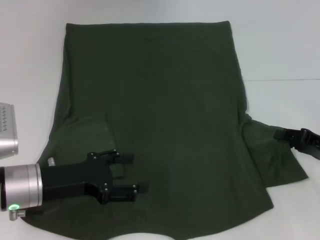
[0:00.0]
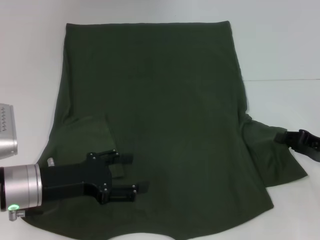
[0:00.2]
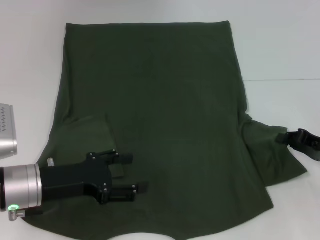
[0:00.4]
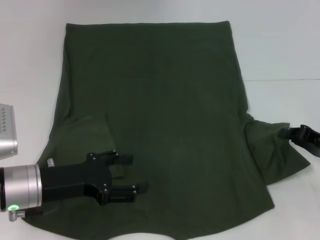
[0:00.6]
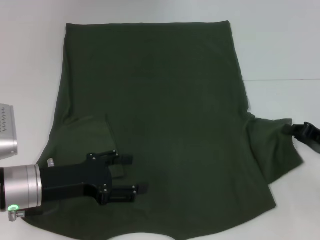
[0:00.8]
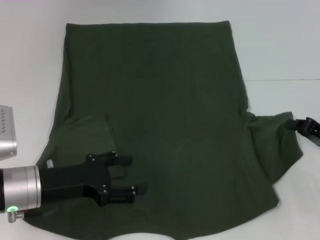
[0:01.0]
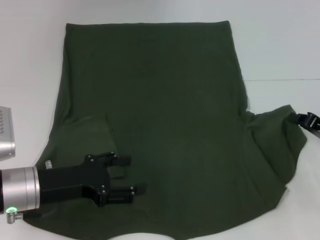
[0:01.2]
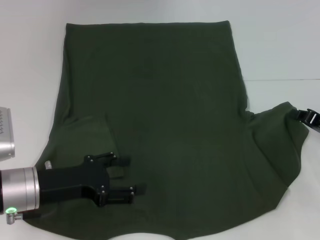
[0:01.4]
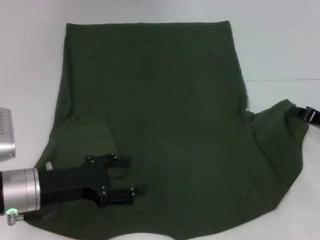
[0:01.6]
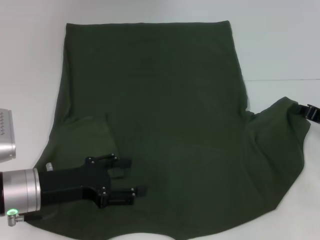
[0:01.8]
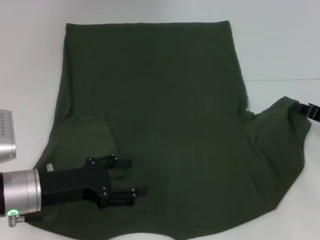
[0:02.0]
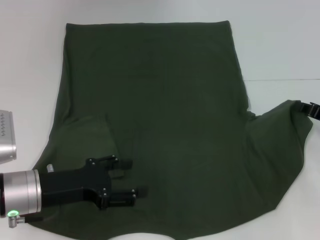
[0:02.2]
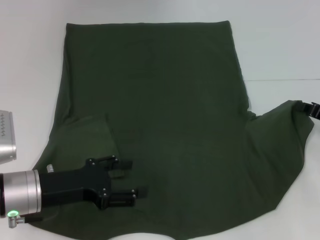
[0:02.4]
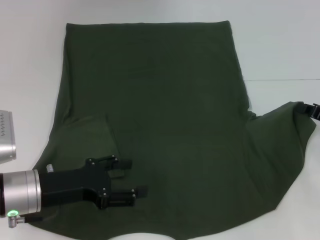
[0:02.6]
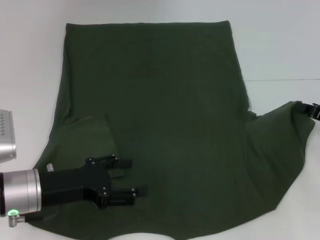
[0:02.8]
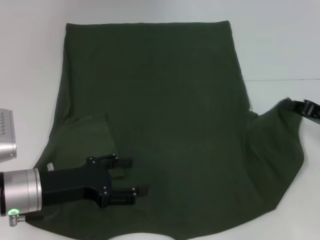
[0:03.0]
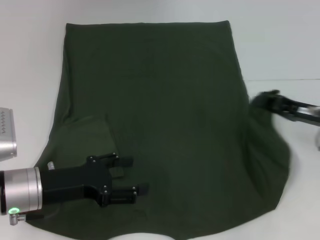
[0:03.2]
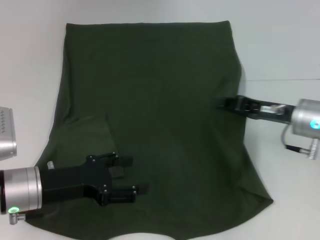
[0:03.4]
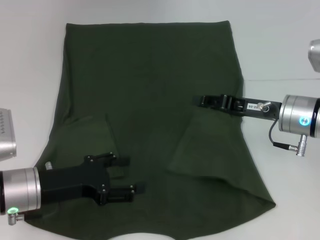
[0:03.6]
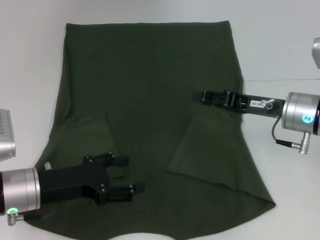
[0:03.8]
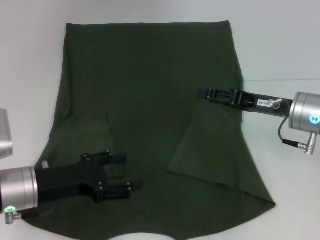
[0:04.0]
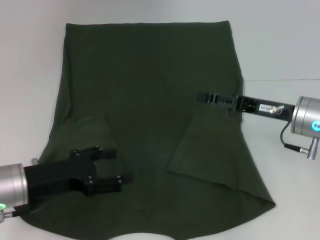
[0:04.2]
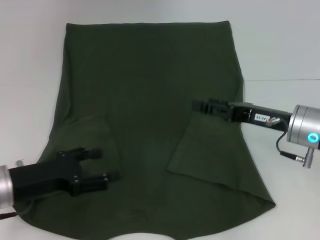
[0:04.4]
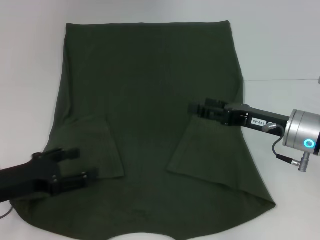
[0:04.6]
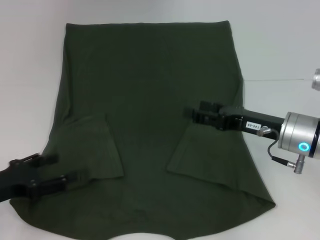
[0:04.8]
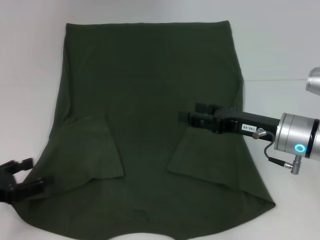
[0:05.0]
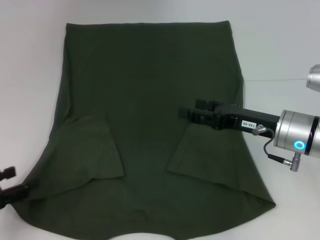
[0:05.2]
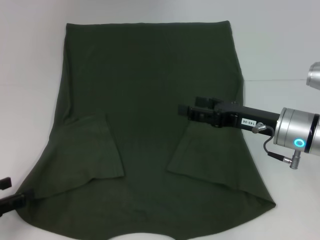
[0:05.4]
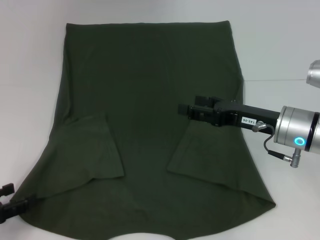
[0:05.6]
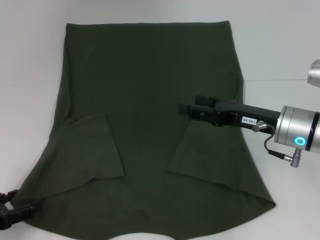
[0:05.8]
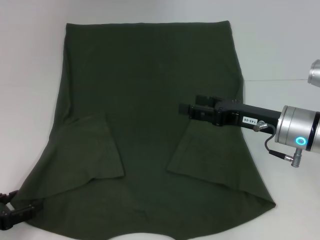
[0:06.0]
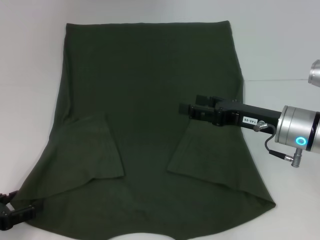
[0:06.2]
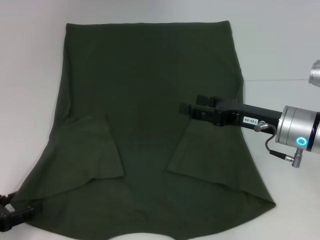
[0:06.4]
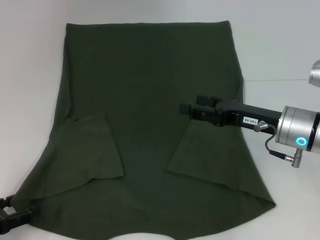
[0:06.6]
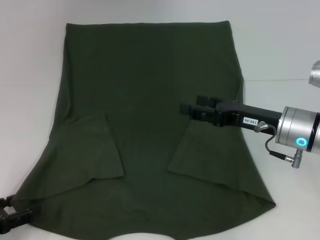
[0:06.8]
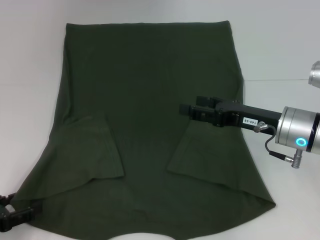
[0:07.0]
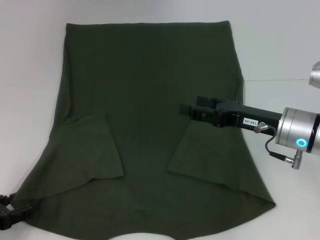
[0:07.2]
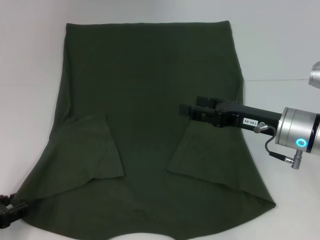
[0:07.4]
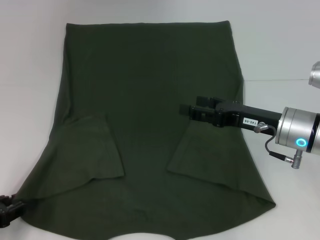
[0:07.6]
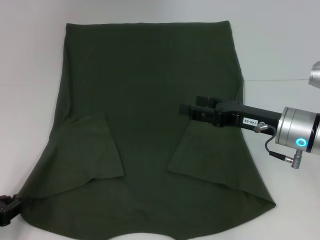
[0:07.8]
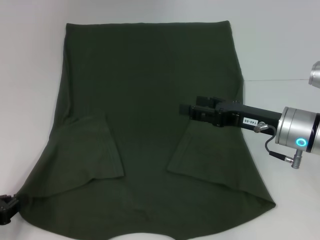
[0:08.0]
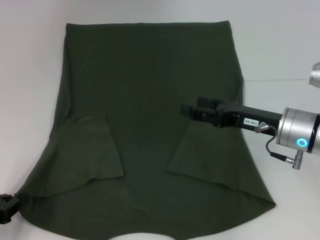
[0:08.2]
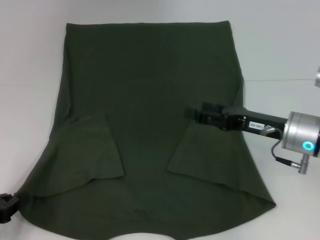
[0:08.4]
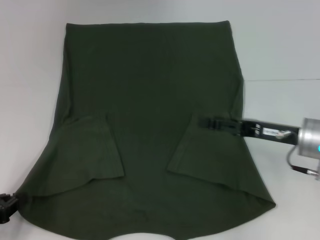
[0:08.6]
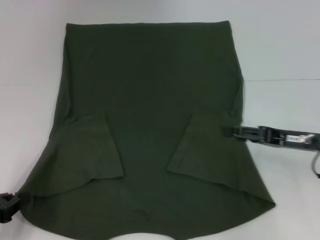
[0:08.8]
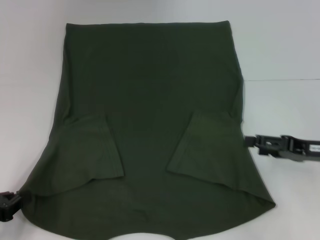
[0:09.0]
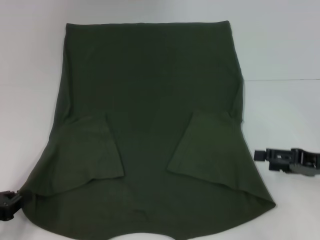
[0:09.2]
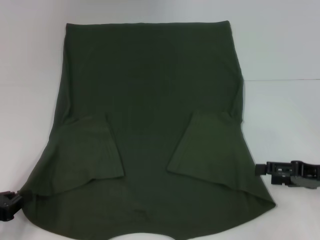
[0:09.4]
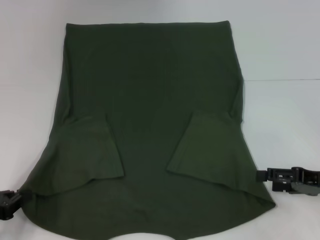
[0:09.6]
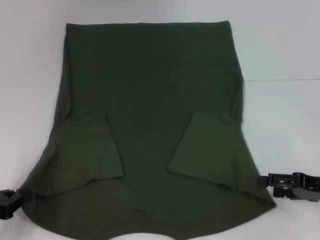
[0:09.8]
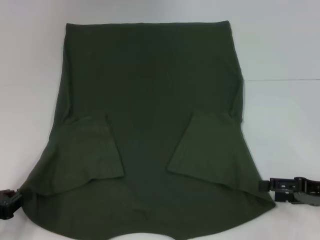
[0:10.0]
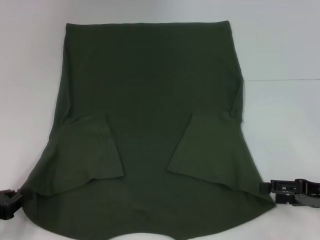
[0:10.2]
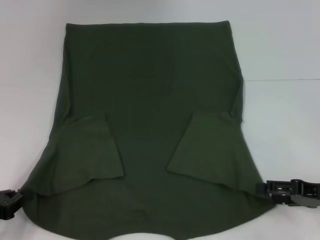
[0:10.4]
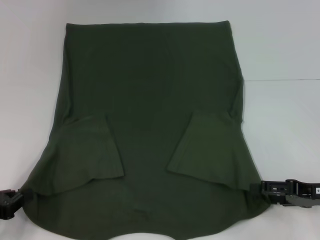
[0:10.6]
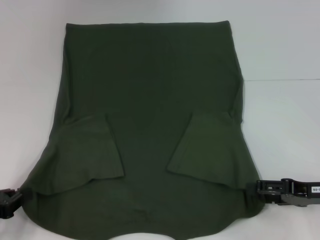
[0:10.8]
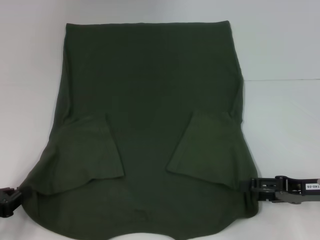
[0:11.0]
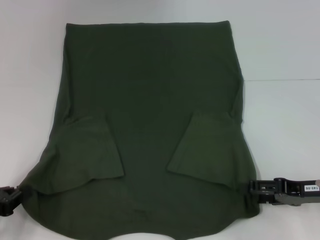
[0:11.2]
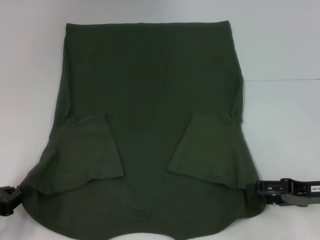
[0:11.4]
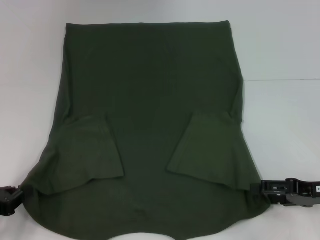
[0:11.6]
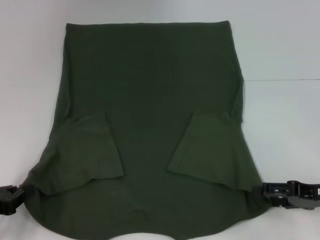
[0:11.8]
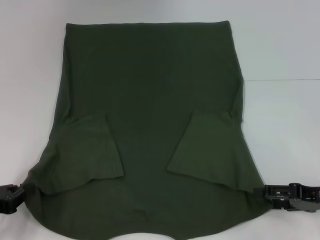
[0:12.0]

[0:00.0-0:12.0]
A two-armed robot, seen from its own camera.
Step, 0:00.0 to 0:04.0: Fold the bottom right sleeve with your right hand.
Step, 0:04.2 to 0:08.4: Grab the bottom left corner with your left hand.
0:00.0 to 0:01.6: The right gripper closes.
0:01.6 to 0:03.0: The grippers make only small movements.
0:03.0 to 0:04.4: The right gripper goes approximately 10 cm to the left, and opens up.
0:04.4 to 0:06.0: The left gripper shifts some 10 cm to the left and backward.
0:07.6 to 0:09.0: The left gripper closes; the right gripper travels to the right by about 10 cm.
0:09.0 to 0:10.4: The right gripper moves approximately 5 cm.
0:10.4 to 0:12.0: The grippers stay close to where they were, moving slightly.

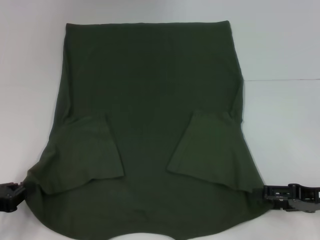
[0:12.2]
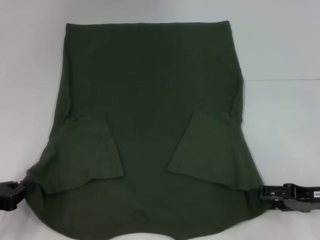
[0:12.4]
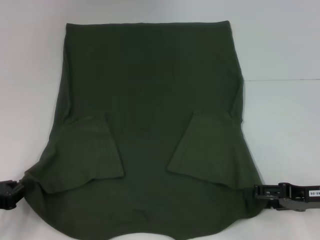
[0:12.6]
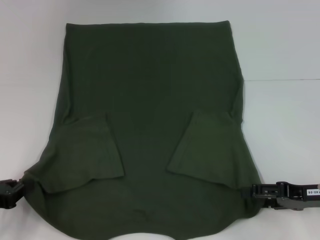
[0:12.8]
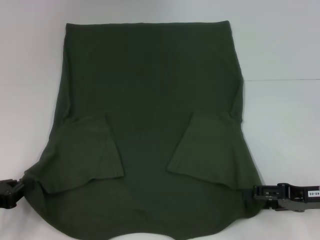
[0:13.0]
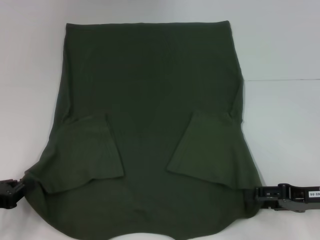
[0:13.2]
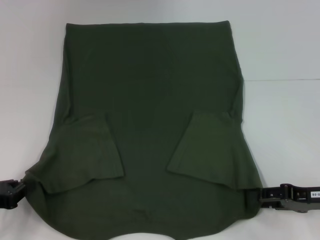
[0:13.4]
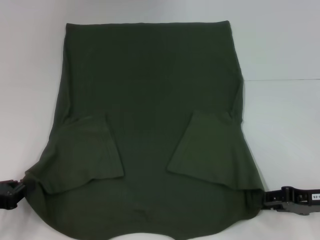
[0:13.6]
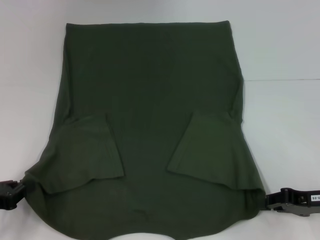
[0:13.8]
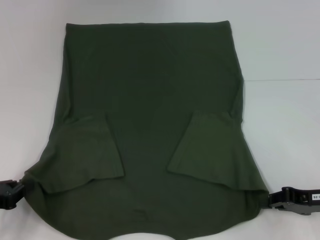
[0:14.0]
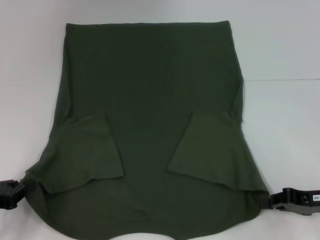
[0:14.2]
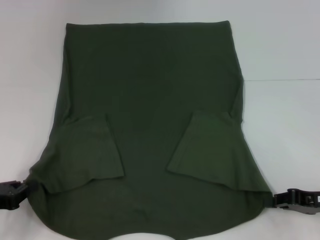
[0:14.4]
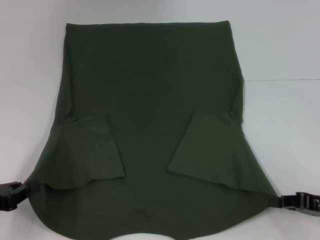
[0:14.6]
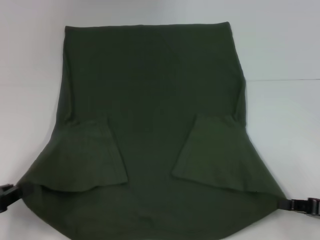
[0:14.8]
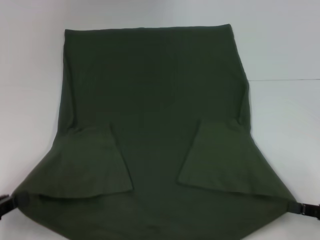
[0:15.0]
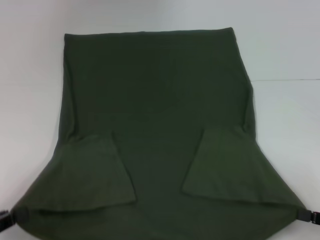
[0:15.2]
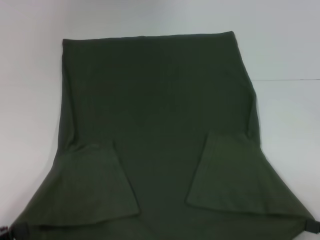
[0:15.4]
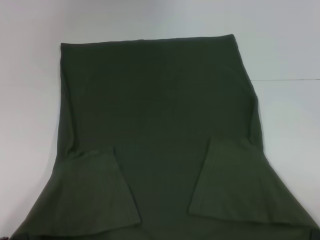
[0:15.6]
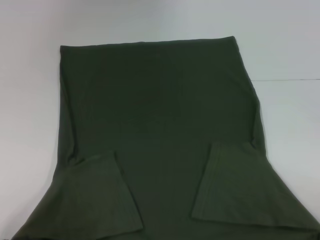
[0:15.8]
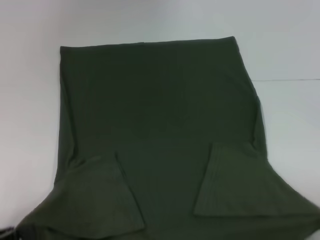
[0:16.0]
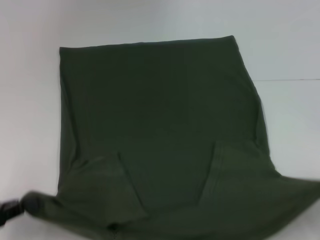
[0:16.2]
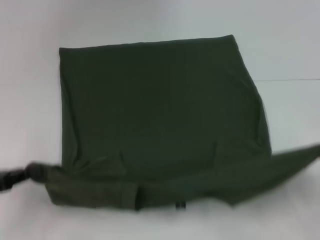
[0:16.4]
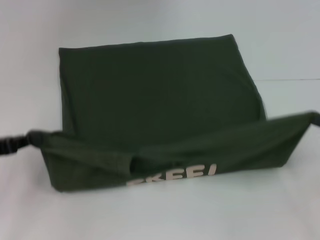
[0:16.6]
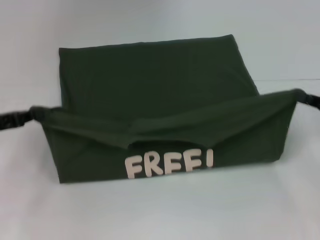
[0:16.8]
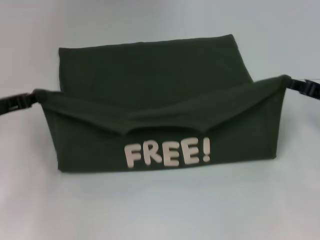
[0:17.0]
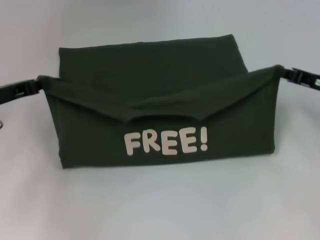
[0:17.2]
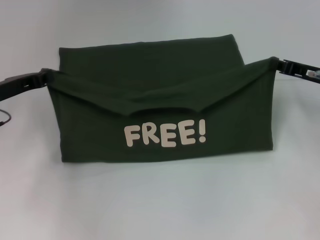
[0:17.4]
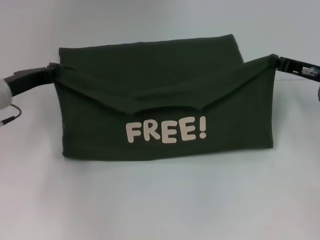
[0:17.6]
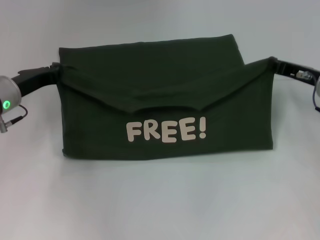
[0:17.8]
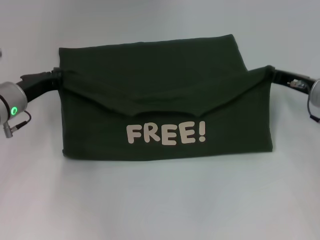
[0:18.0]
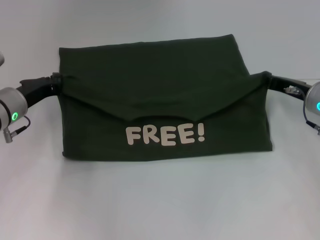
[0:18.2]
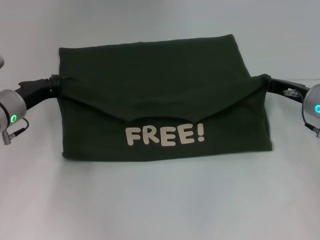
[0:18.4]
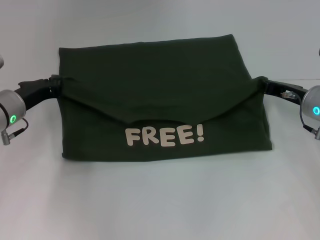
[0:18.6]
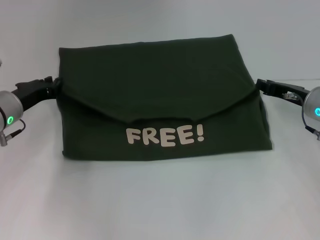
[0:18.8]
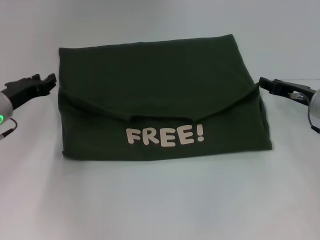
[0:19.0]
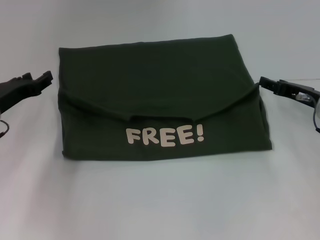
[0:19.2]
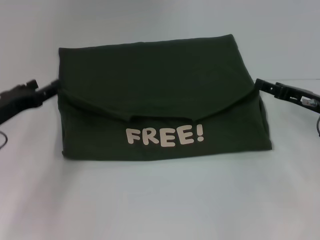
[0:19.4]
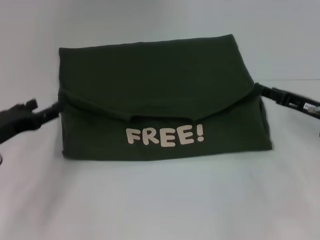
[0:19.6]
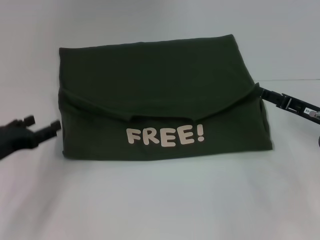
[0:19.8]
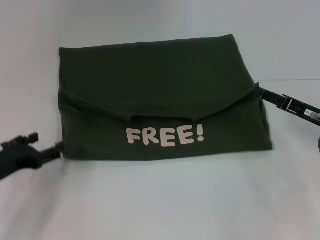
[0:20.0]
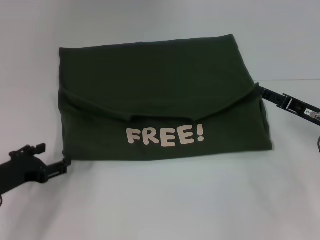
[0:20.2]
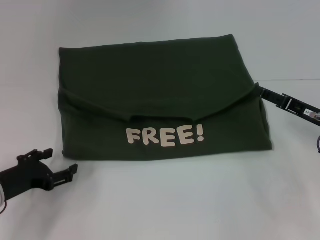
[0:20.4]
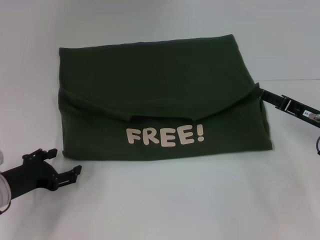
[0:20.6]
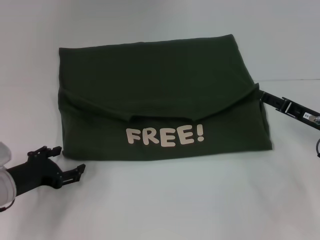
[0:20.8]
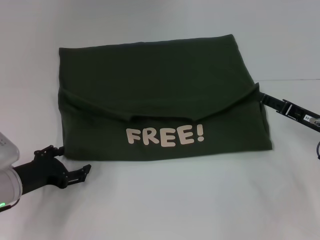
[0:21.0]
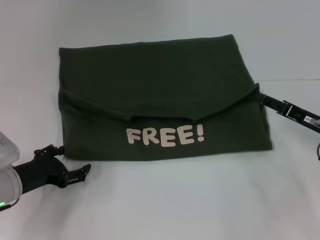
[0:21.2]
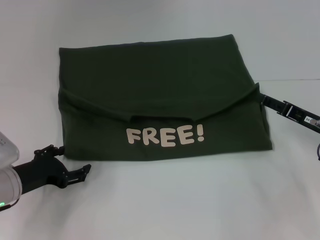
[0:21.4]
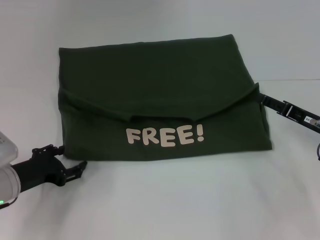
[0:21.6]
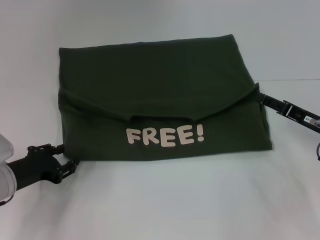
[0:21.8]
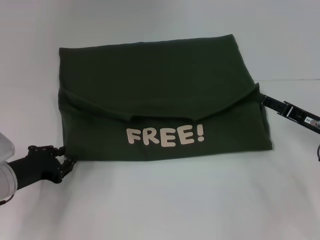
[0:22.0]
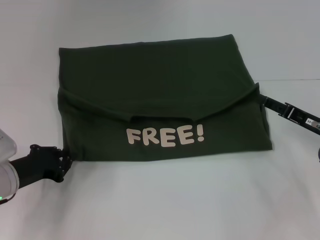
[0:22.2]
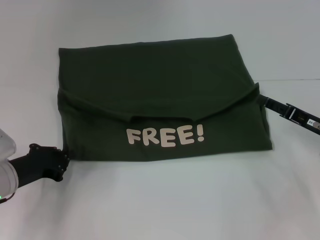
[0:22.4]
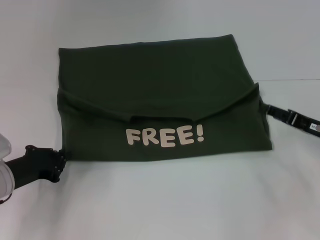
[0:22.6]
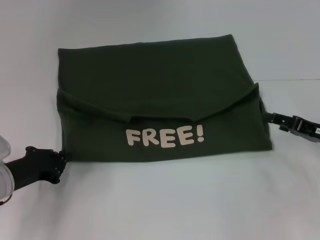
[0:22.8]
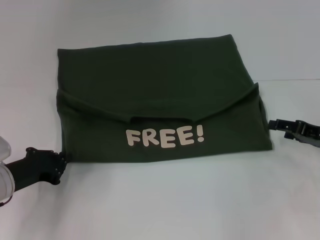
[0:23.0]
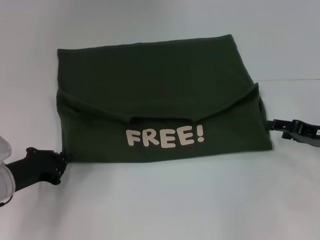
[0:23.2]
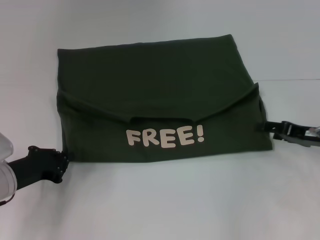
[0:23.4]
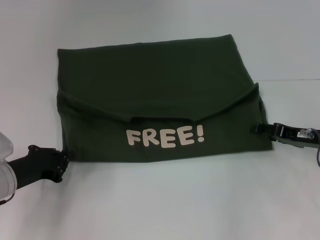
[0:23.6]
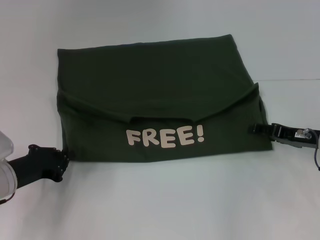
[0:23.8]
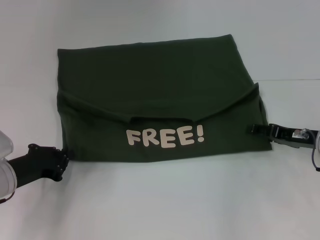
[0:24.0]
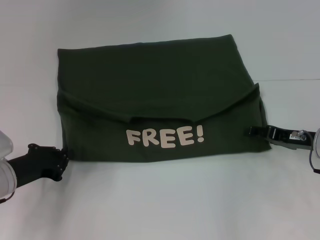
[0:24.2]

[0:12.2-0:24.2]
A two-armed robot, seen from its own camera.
Step, 0:12.2 to 0:14.6: Grab the bottom right corner with your right hand.
Step, 0:14.8 to 0:18.6: Fold the clothes with your left hand.
Step, 0:14.8 to 0:18.6: Fold the clothes with your right hand.
0:12.2 to 0:13.8: The right gripper closes its fingers.
0:13.8 to 0:15.2: The left gripper heads backward, covering roughly 5 cm. The right gripper goes approximately 10 cm backward and to the right.
0:15.2 to 0:16.6: The left gripper goes roughly 10 cm forward, while the right gripper goes approximately 10 cm forward and upward.
0:16.6 to 0:18.2: The right gripper goes approximately 15 cm forward and to the left. The left gripper travels forward and to the right by about 15 cm.
0:18.2 to 0:19.8: The left gripper is displaced backward by approximately 10 cm, and opens up. The right gripper goes approximately 5 cm backward, and opens its fingers.
0:19.8 to 0:21.2: The left gripper ends up roughly 5 cm from where it was.
0:21.2 to 0:22.6: The left gripper closes up.
0:22.6 to 0:24.2: There are only small adjustments of the grippers.
